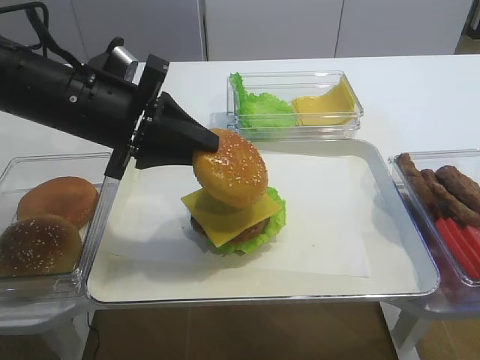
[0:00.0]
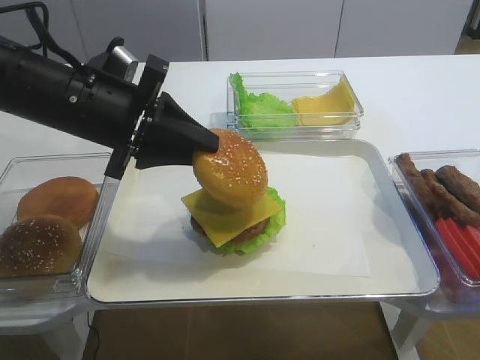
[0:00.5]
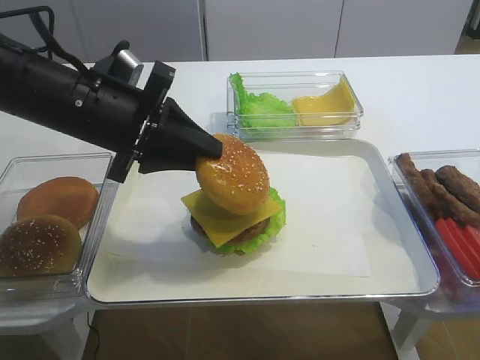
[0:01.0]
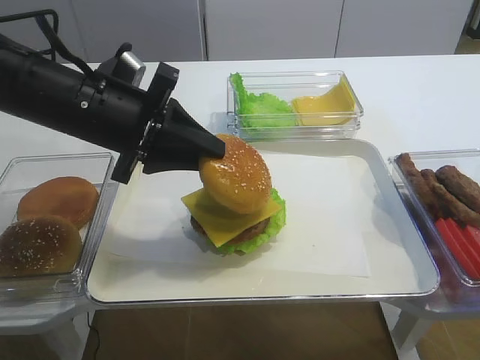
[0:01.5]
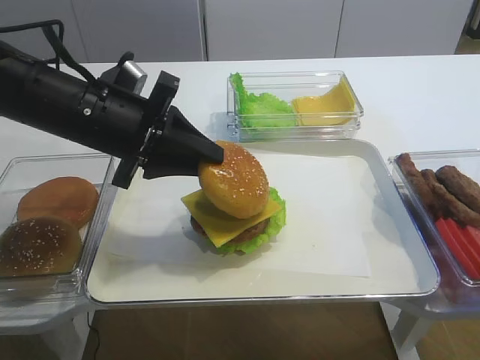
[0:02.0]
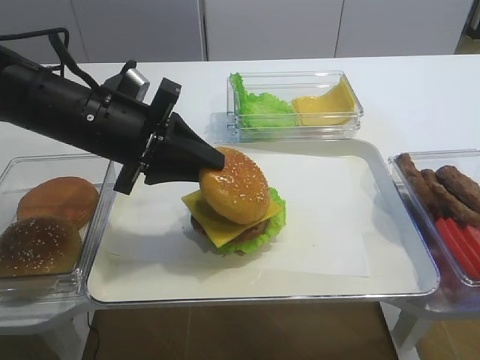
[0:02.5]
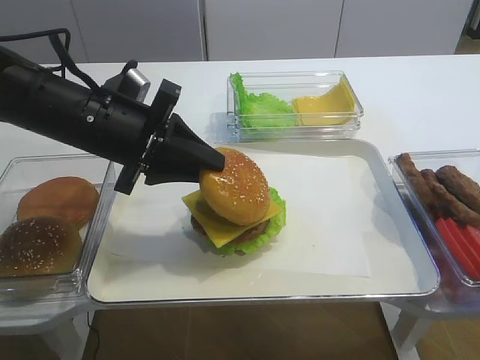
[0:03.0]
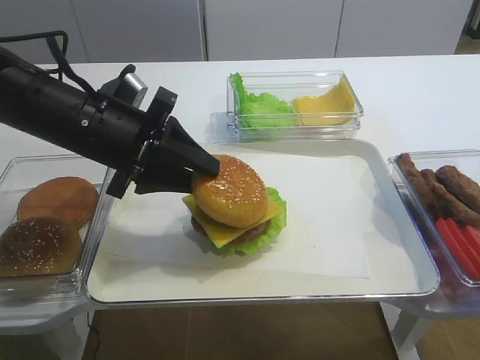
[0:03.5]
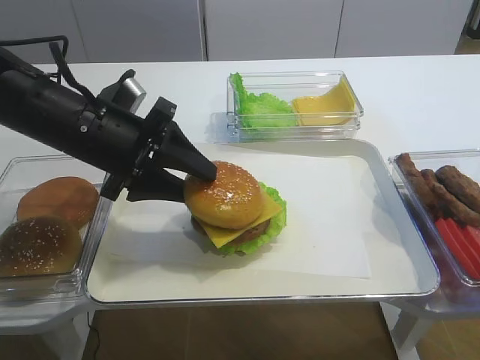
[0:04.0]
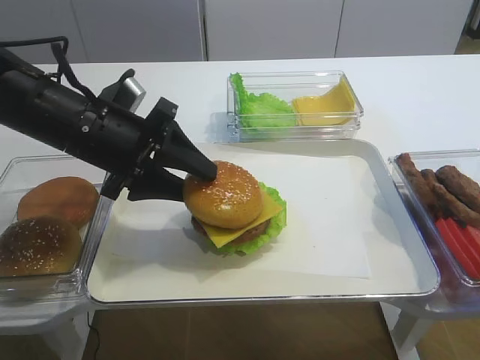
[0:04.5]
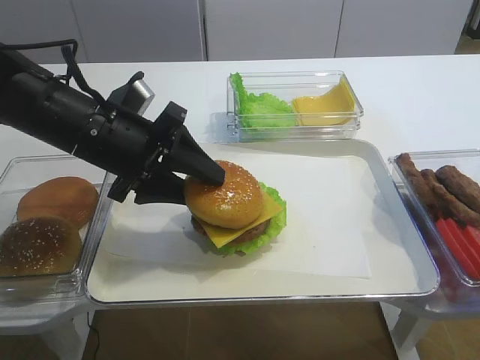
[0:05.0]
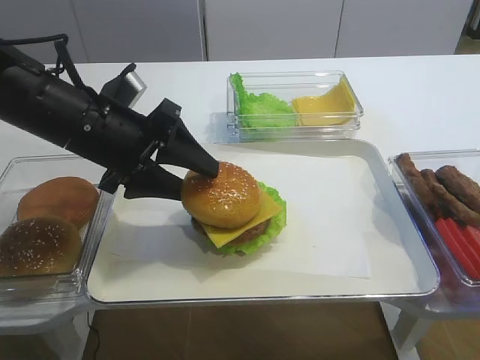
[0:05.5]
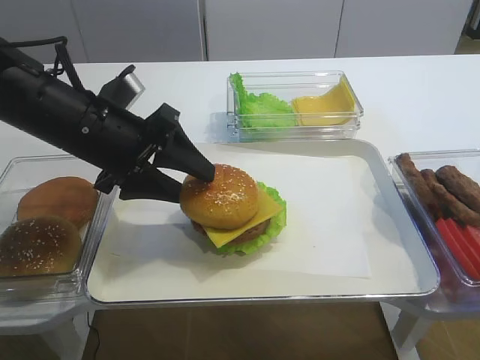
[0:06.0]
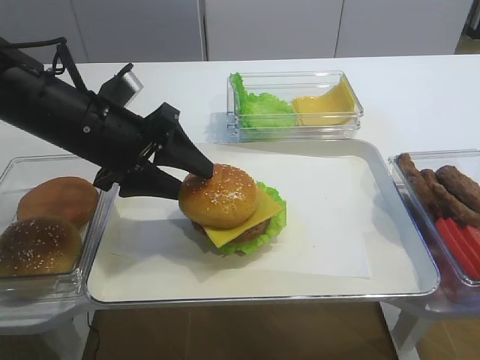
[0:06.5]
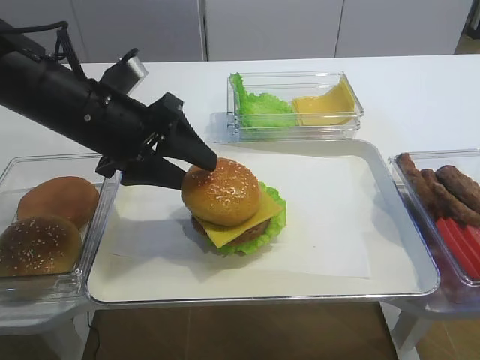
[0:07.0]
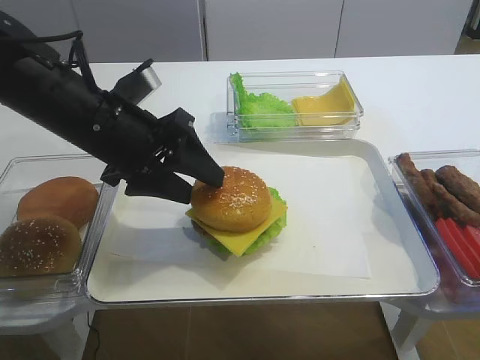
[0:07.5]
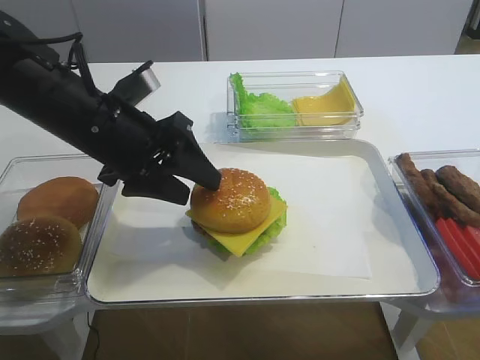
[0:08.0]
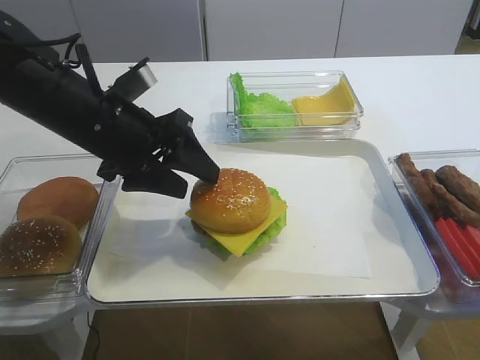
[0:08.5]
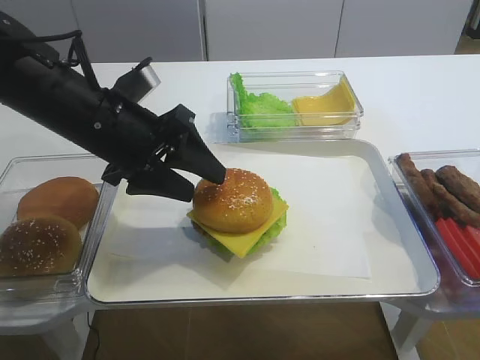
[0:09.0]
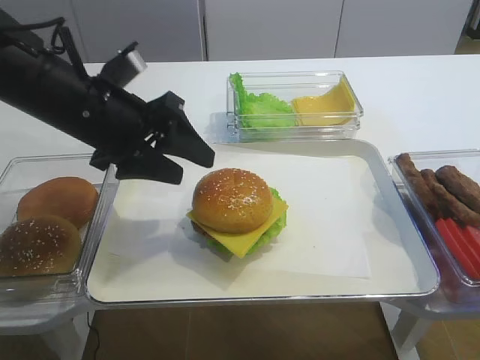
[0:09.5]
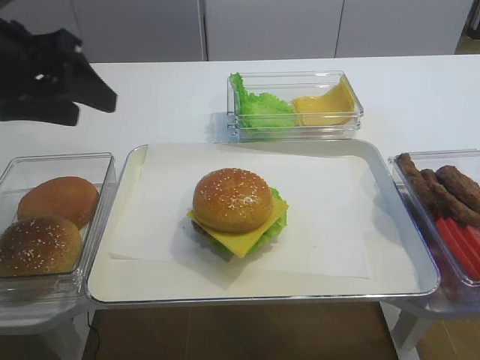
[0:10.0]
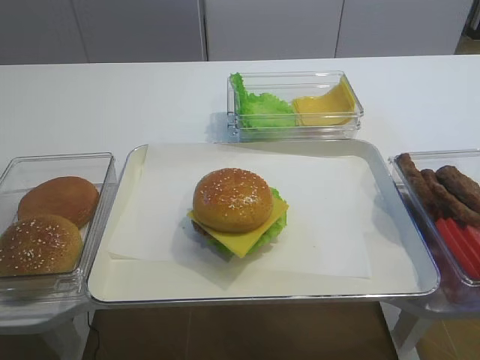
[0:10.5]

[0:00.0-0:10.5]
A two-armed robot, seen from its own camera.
Step, 0:00.0 to 0:08.5: Place the hamburger lid on the cheese slice with the left gripper.
0:00.0 to 0:02.0: There are only small adjustments of the grippers.
0:02.0 to 0:04.0: The left gripper opens up.
0:04.0 to 0:08.5: There are only small adjustments of the grippers.
0:08.5 to 0:10.5: The left gripper heads upward, to the left and backward, covering roughly 20 cm.

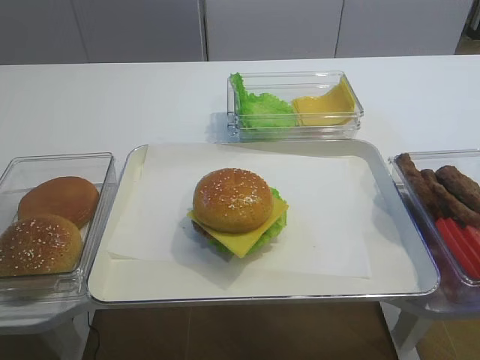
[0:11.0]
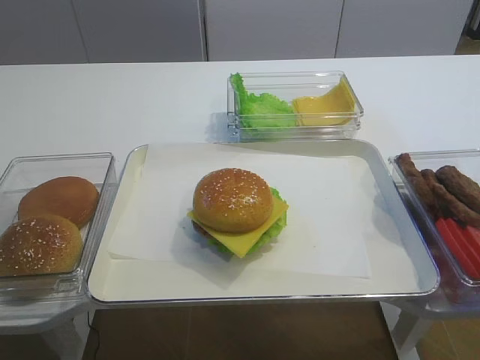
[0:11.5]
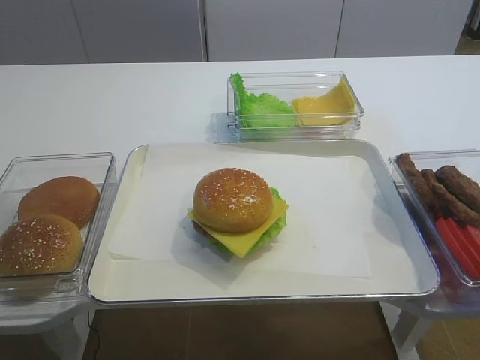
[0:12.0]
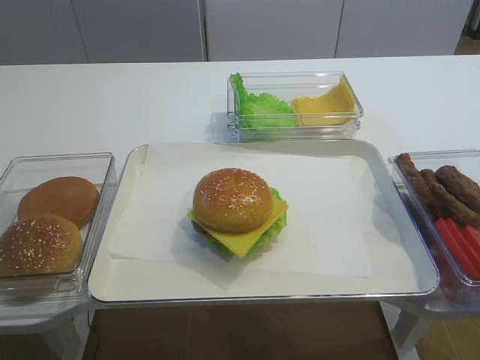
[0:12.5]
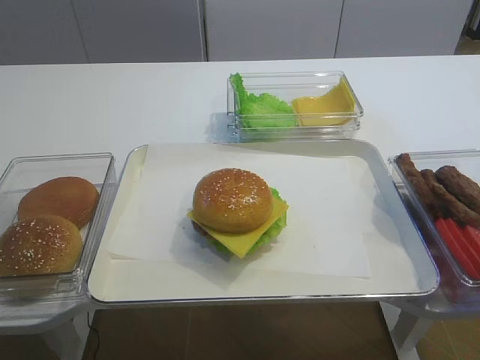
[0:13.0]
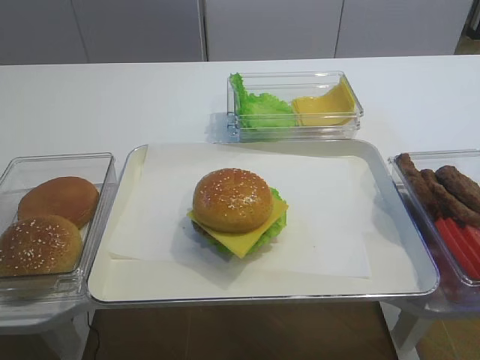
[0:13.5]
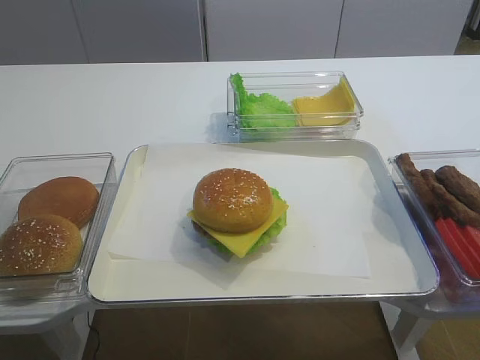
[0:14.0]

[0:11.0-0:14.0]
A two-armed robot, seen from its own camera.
0:12.5 to 0:14.0: Both grippers stay put.
